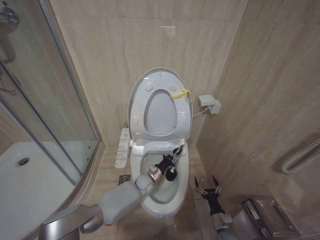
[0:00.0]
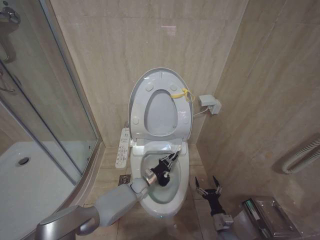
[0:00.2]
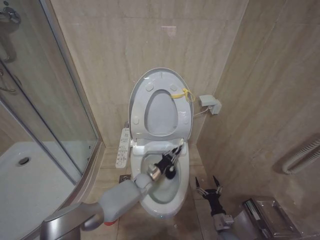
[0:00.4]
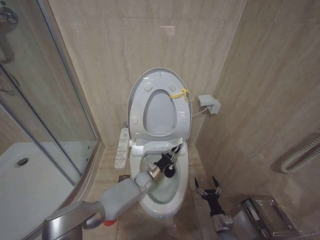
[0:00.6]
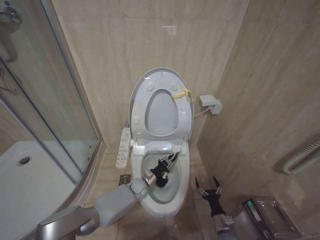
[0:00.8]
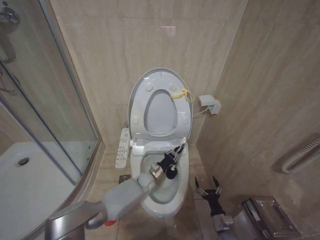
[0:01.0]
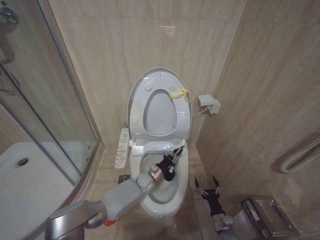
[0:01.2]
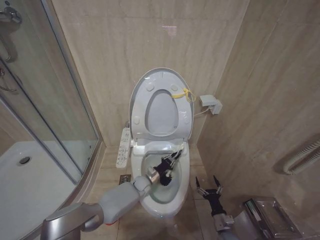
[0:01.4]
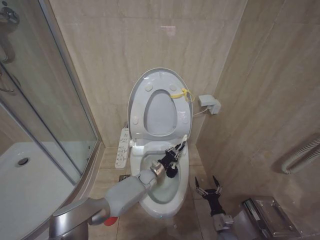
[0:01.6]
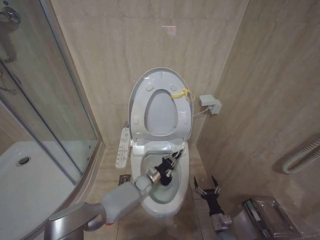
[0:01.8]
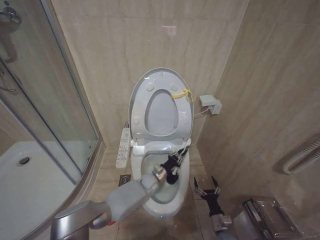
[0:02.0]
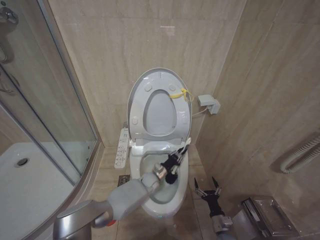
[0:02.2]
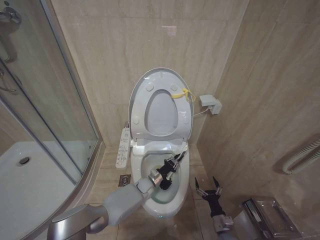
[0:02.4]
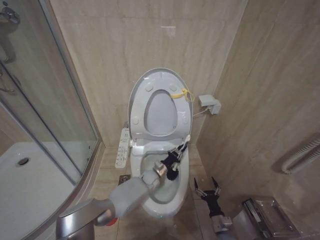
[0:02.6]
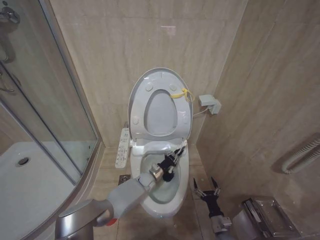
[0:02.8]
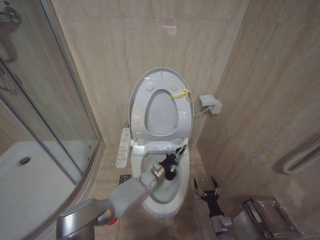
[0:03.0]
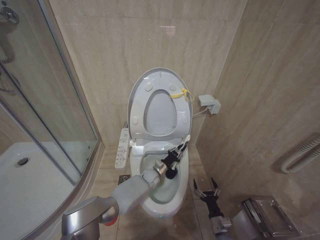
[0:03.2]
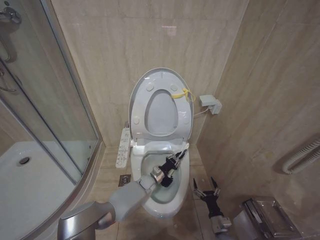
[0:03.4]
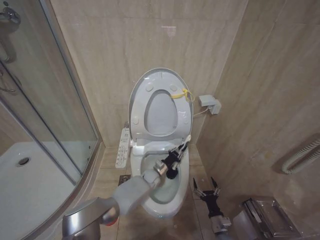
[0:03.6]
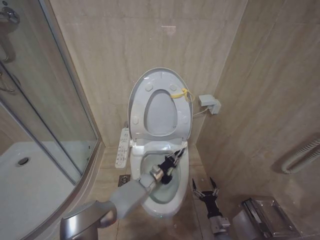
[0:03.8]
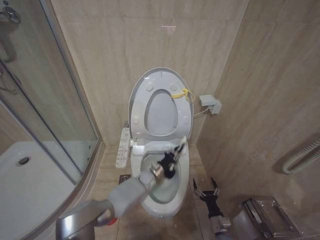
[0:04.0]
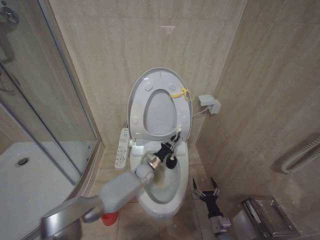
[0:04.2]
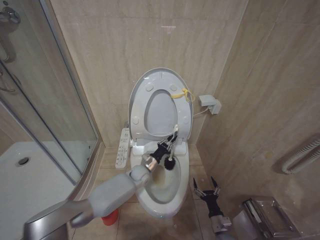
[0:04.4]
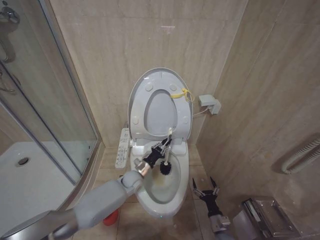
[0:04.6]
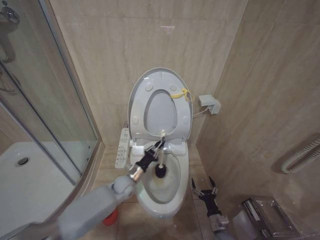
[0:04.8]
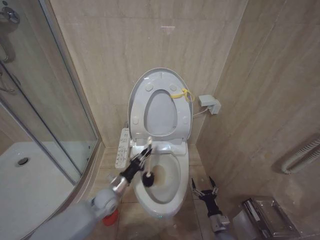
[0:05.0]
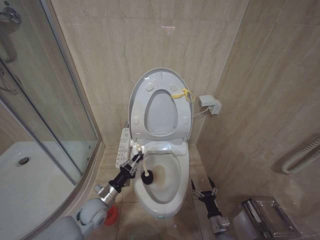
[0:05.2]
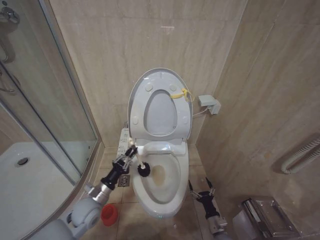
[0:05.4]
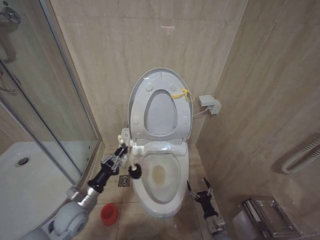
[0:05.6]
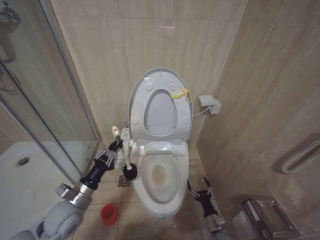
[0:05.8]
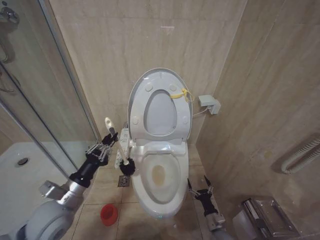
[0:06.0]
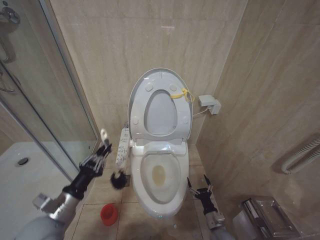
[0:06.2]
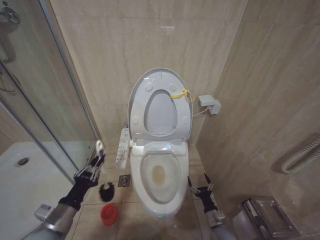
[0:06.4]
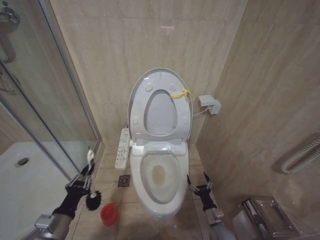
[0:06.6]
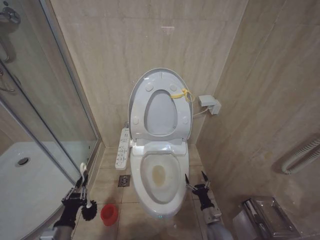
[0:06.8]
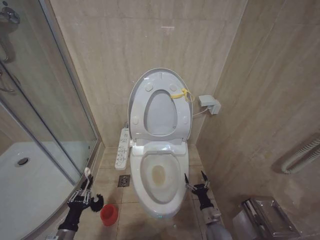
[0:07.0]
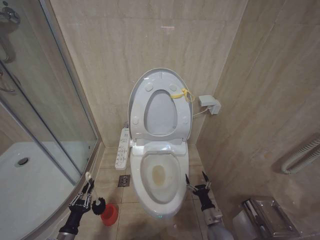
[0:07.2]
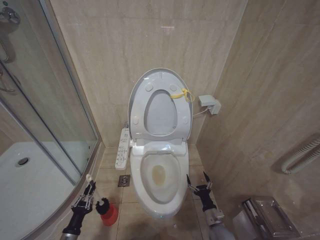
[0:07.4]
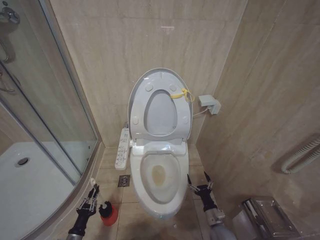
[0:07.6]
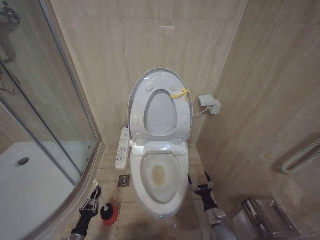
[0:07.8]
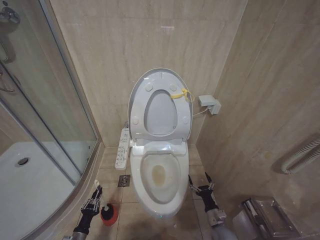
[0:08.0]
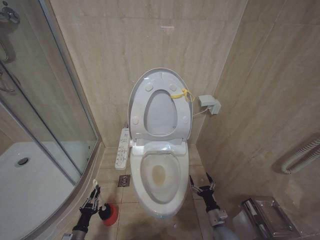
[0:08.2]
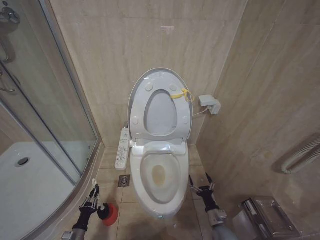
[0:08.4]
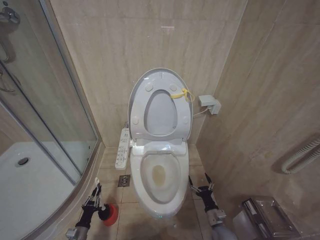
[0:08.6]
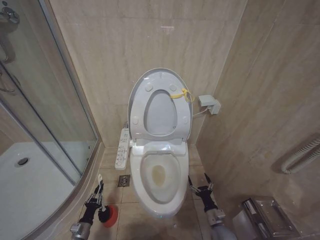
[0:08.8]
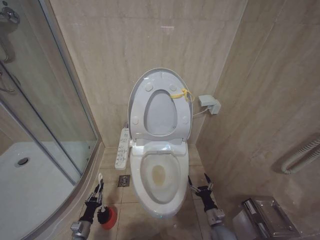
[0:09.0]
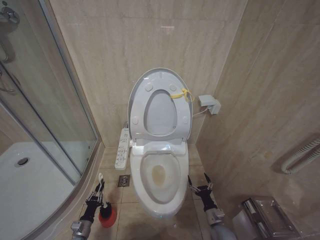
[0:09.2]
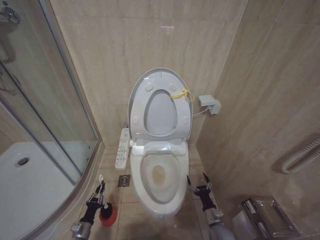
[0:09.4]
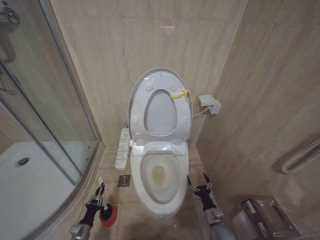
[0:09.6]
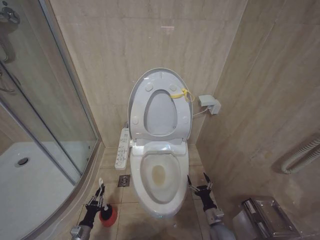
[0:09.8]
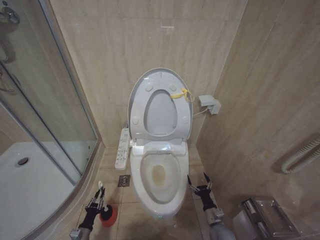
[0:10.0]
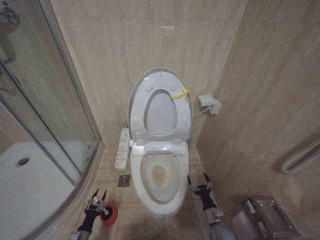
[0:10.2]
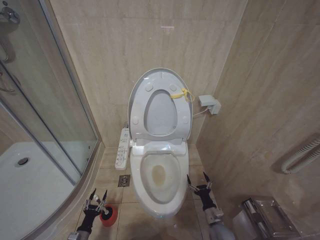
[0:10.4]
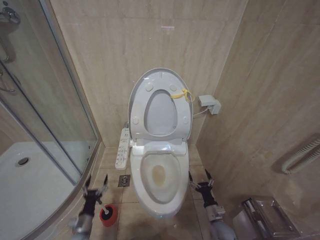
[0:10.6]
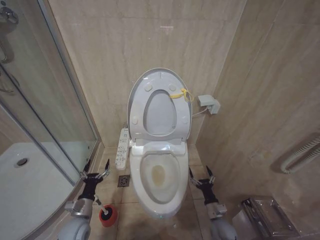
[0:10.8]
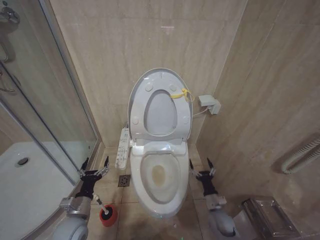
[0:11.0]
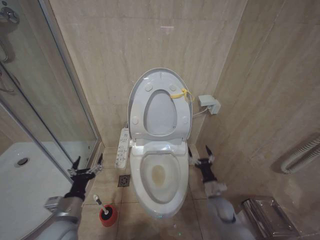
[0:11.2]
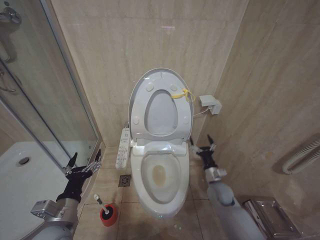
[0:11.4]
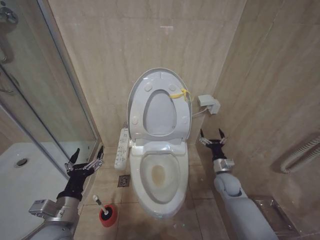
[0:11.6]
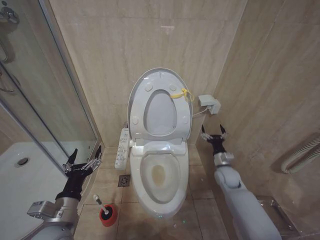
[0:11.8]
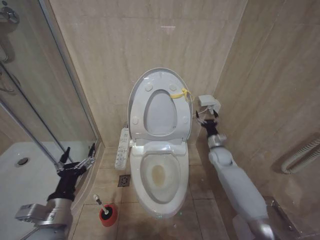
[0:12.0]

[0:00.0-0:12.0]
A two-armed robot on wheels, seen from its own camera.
Task of the whole recording: Open the toilet lid, clean the toilet bowl with a toilet brush, close the toilet lid, and flush.
0:00.0 to 0:03.0: The grippers make only small movements.
0:03.0 to 0:04.4: The left gripper heads upward, covering approximately 10 cm.
0:04.4 to 0:06.0: The left gripper heads to the left, backward and upward, covering approximately 35 cm.
0:06.0 to 0:07.6: The left gripper goes about 30 cm downward.
0:07.6 to 0:09.0: The left gripper moves downward and forward, about 10 cm.
0:09.0 to 0:10.4: The left gripper opens its fingers.
0:10.4 to 0:12.0: The right gripper is displaced upward and forward by some 30 cm; the left gripper moves upward, about 35 cm, and opens its fingers.

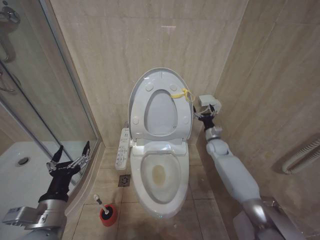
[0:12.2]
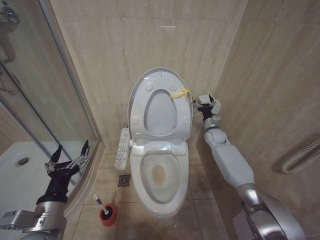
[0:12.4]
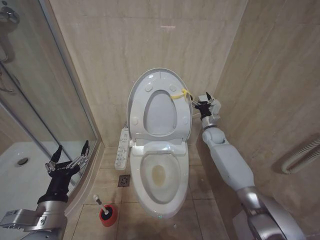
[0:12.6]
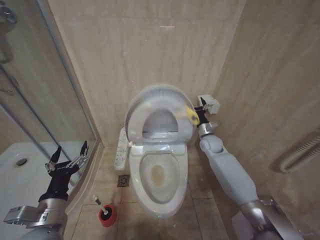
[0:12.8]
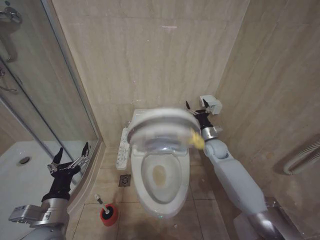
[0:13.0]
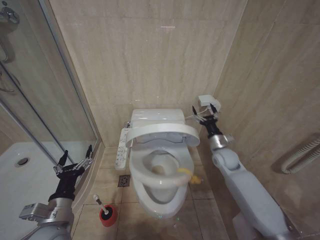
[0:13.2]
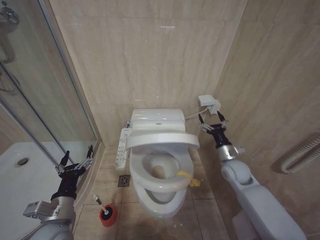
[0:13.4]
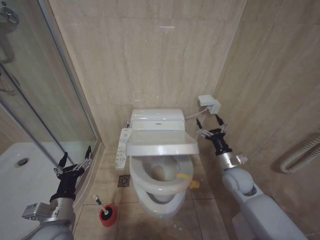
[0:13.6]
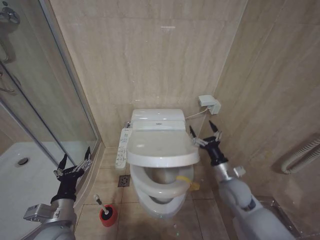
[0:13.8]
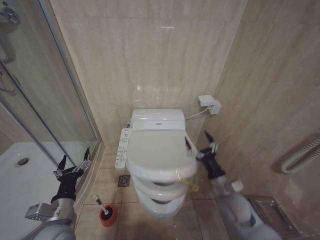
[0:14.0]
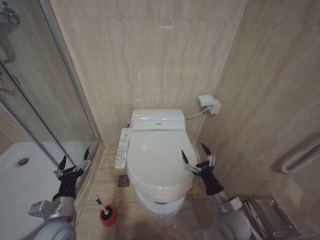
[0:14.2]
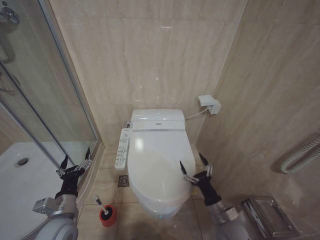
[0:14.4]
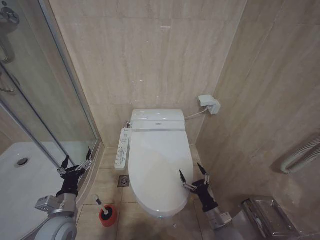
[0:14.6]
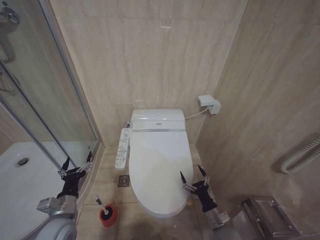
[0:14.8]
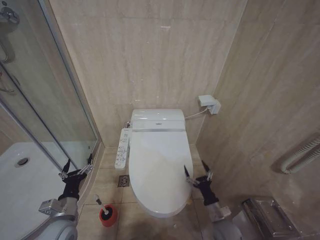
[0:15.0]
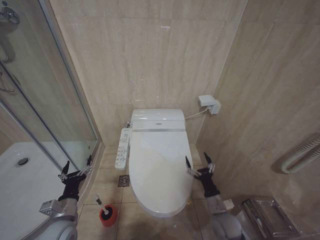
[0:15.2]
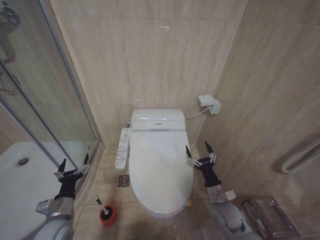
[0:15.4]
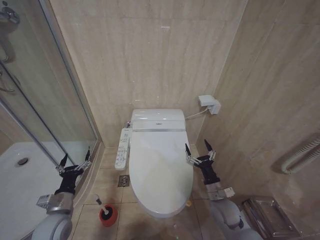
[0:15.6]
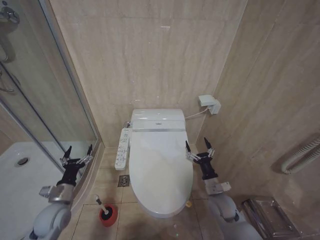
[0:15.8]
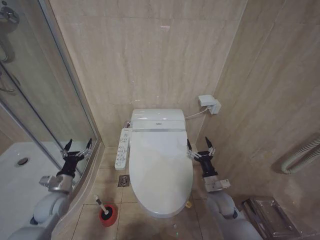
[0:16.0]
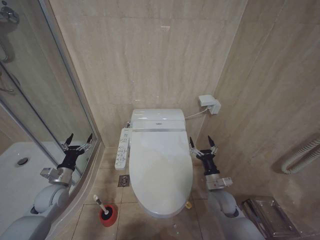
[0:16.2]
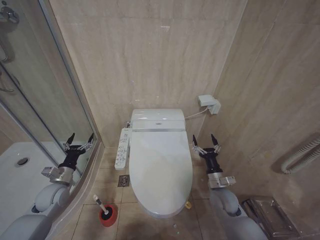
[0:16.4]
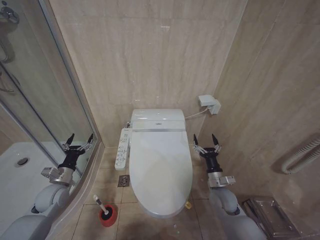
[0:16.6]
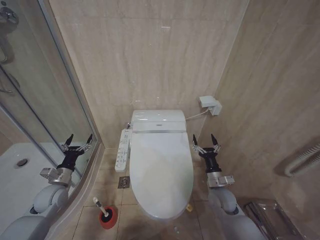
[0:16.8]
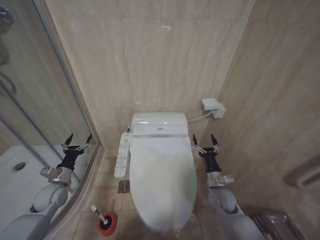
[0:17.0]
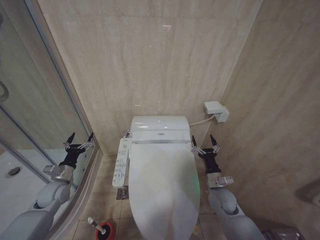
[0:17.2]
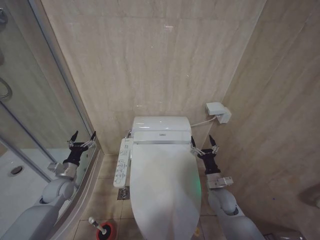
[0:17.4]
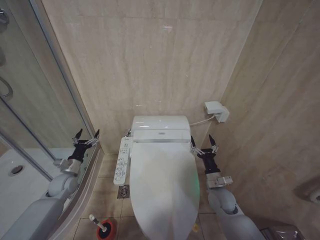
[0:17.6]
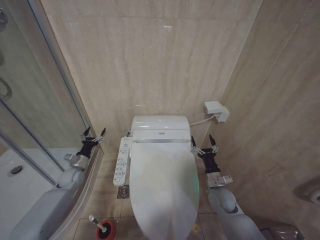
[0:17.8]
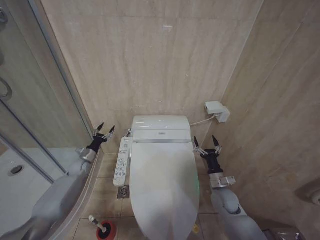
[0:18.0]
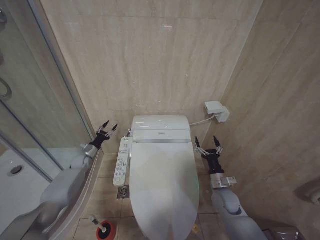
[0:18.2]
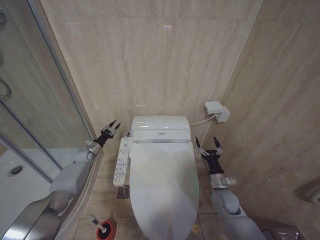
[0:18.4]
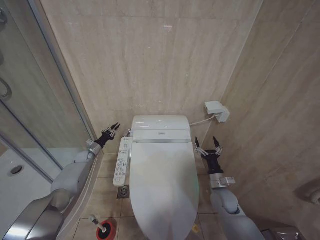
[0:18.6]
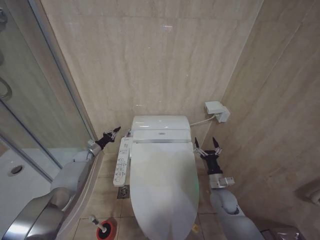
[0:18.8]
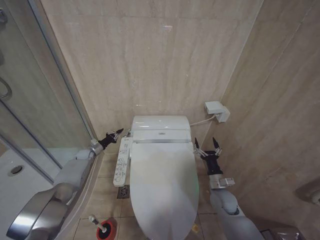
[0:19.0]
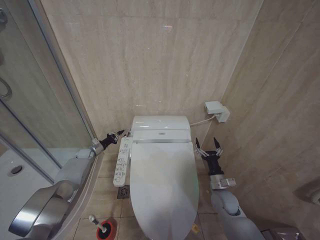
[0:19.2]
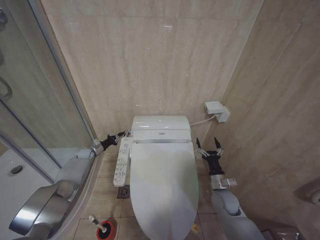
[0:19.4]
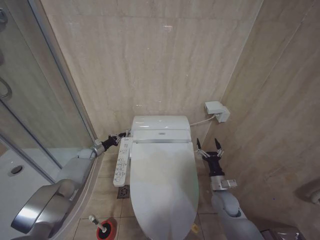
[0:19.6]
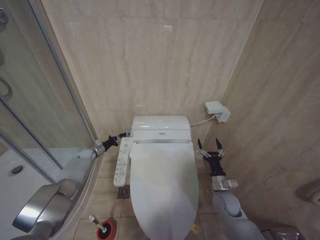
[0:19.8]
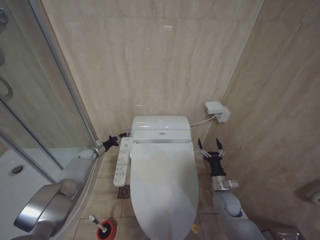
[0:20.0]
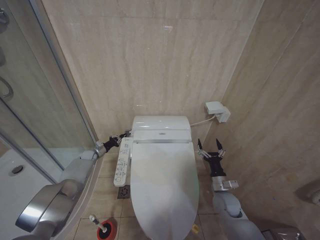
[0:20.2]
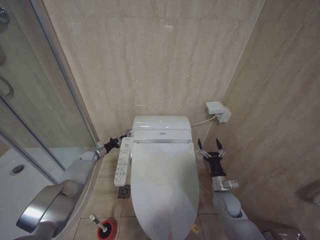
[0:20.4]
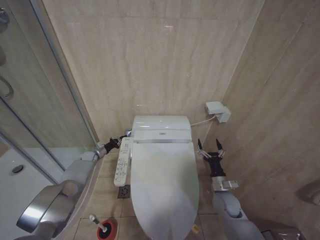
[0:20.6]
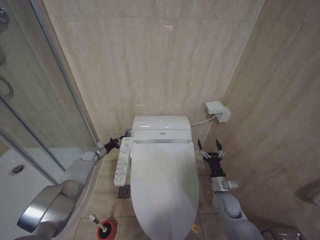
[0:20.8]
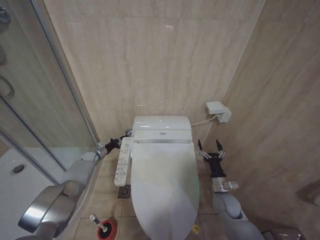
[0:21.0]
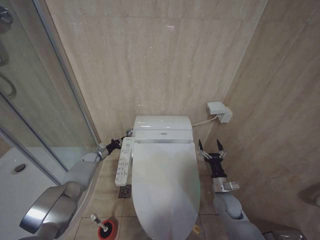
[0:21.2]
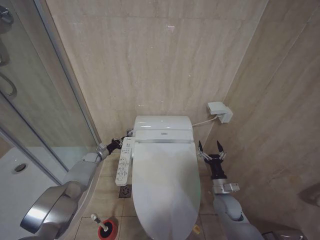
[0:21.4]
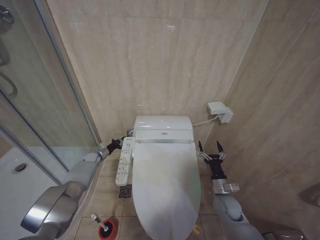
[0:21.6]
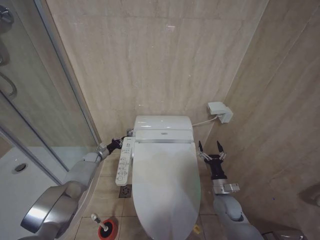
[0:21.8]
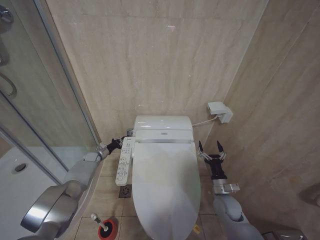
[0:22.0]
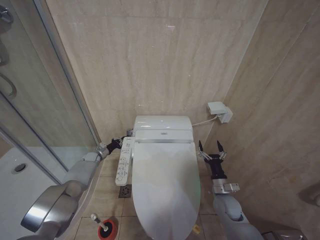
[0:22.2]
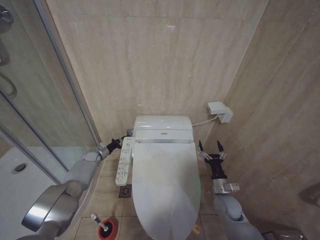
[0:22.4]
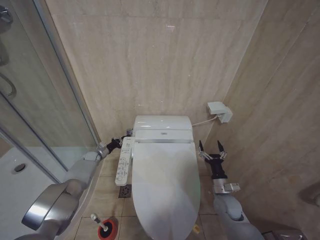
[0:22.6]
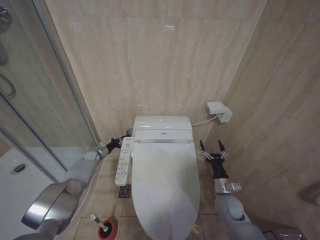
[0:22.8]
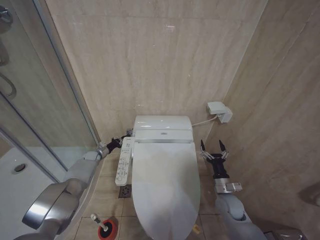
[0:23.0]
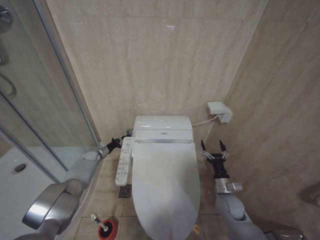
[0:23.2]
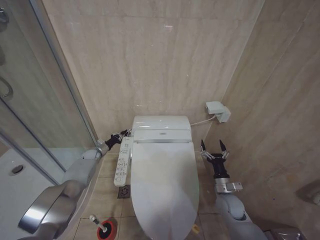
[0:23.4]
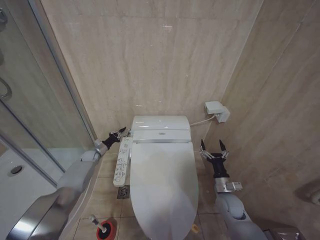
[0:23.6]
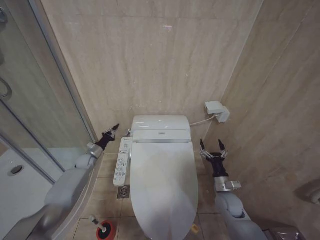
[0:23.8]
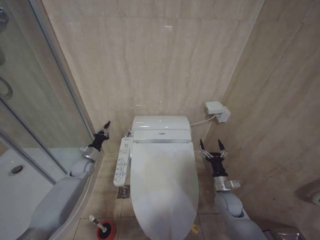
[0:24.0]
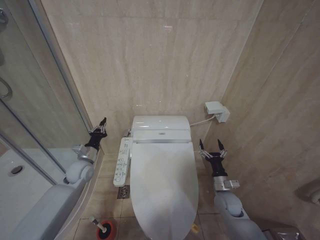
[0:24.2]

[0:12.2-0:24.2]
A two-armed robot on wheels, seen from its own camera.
Task of the whole recording: Open the toilet lid, clean the toilet bowl with a toilet brush, close the toilet lid, and flush.
0:12.2 to 0:13.8: The left gripper moves some 5 cm. The right gripper travels backward by roughly 20 cm.
0:13.8 to 0:15.2: The left gripper heads downward, covering about 5 cm. The right gripper moves downward and backward, some 15 cm.
0:15.2 to 0:16.6: The left gripper moves forward and to the left, some 15 cm. Meanwhile the right gripper heads forward and upward, covering some 10 cm.
0:16.6 to 0:18.2: The left gripper travels forward by about 20 cm.
0:18.2 to 0:19.8: The left gripper closes up.
0:19.8 to 0:21.2: There are only small adjustments of the grippers.
0:21.2 to 0:22.6: Neither gripper changes place.
0:22.6 to 0:24.2: The left gripper is displaced backward and upward by about 15 cm.
